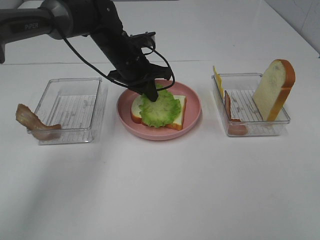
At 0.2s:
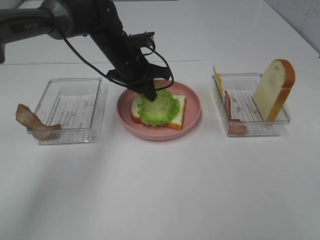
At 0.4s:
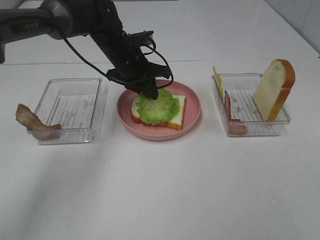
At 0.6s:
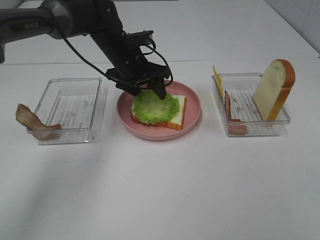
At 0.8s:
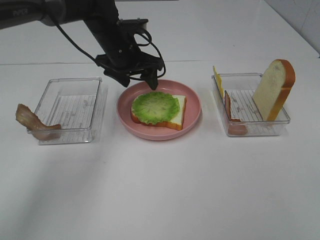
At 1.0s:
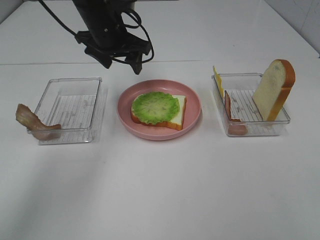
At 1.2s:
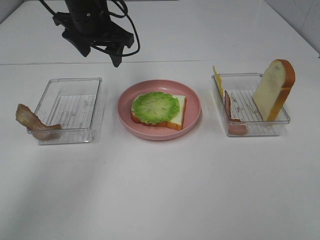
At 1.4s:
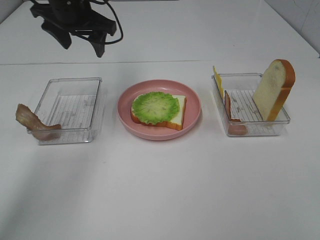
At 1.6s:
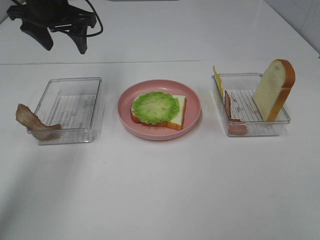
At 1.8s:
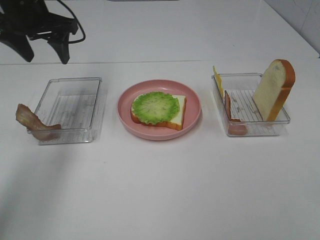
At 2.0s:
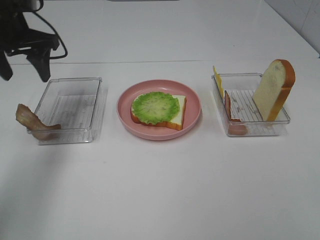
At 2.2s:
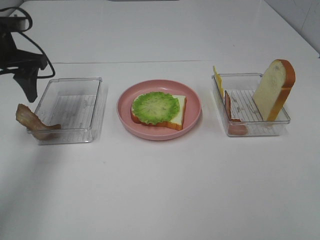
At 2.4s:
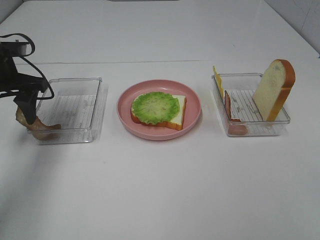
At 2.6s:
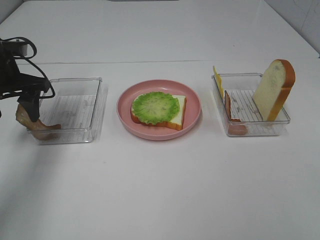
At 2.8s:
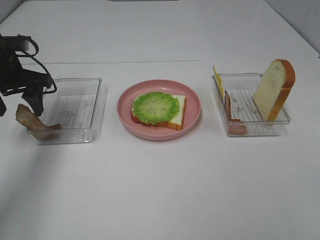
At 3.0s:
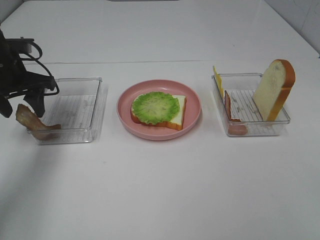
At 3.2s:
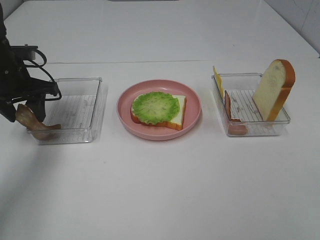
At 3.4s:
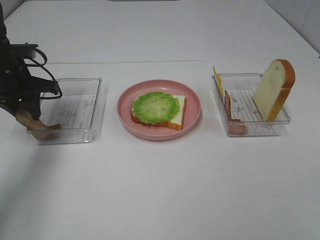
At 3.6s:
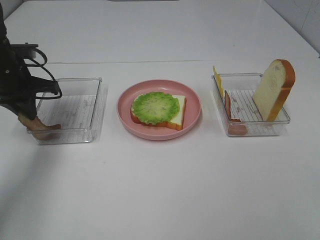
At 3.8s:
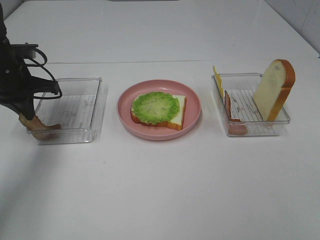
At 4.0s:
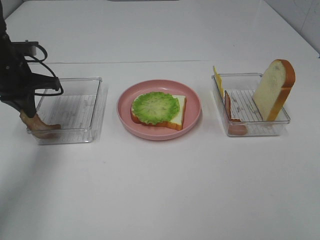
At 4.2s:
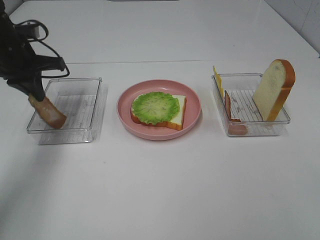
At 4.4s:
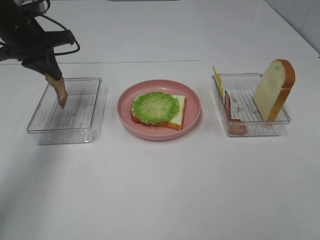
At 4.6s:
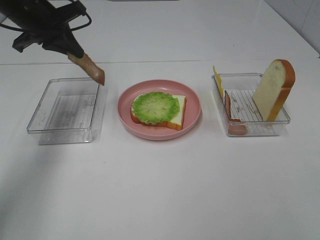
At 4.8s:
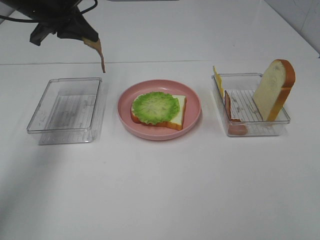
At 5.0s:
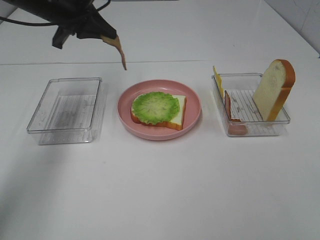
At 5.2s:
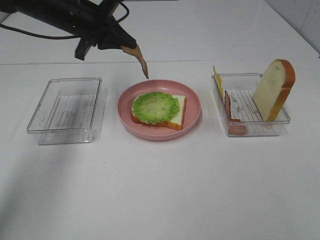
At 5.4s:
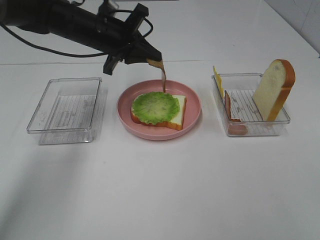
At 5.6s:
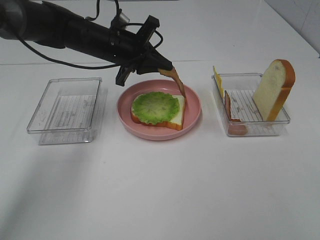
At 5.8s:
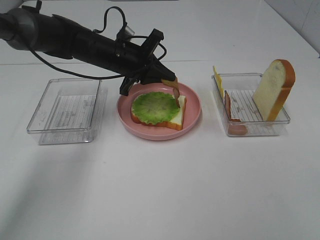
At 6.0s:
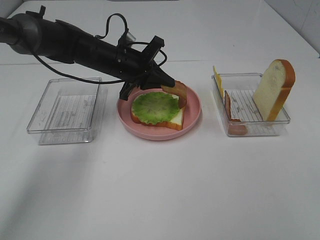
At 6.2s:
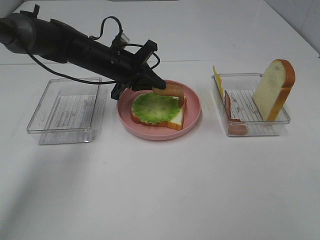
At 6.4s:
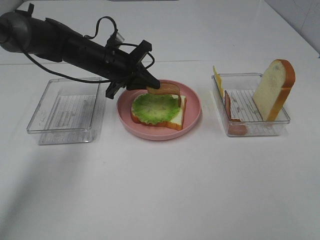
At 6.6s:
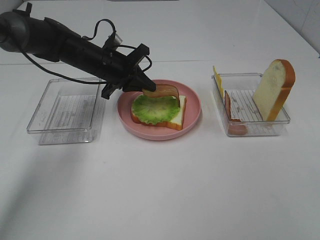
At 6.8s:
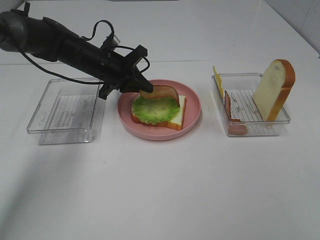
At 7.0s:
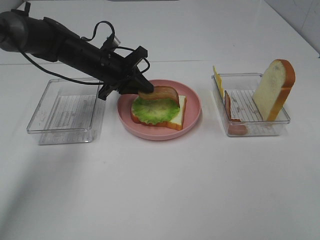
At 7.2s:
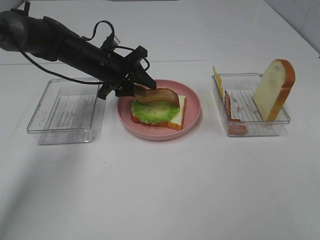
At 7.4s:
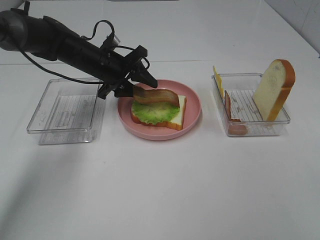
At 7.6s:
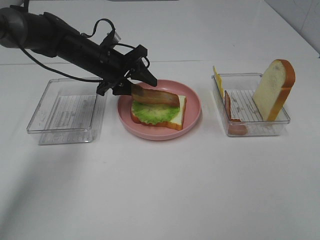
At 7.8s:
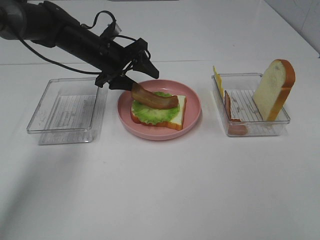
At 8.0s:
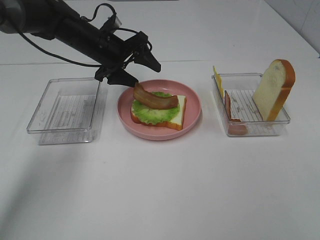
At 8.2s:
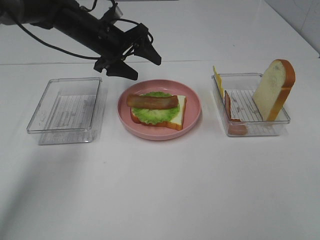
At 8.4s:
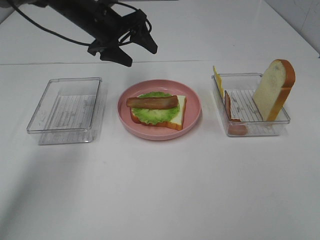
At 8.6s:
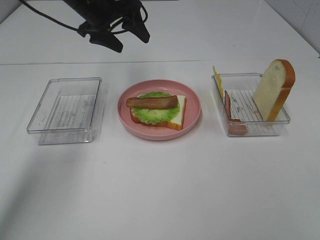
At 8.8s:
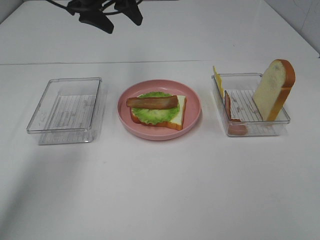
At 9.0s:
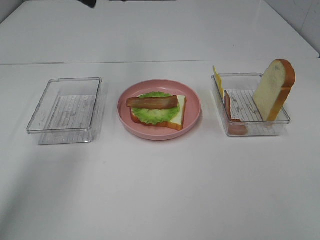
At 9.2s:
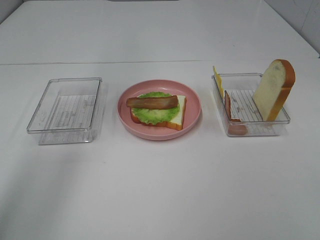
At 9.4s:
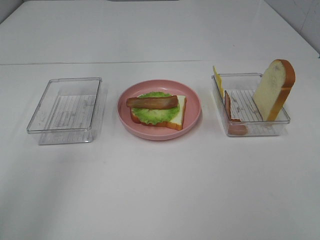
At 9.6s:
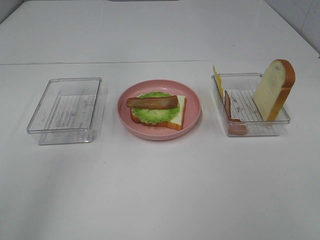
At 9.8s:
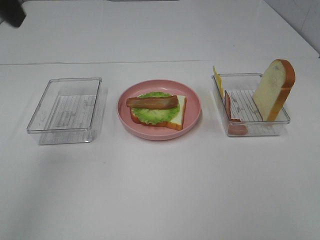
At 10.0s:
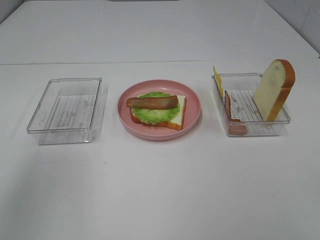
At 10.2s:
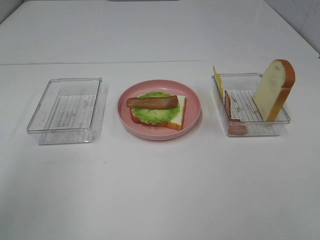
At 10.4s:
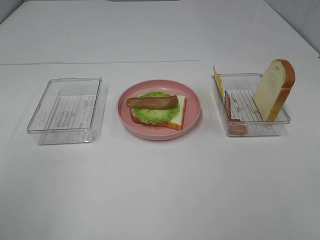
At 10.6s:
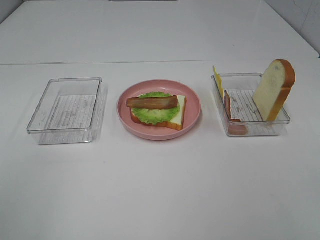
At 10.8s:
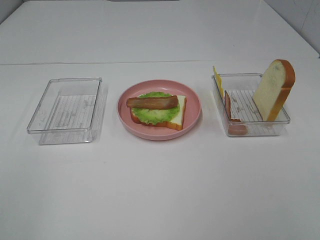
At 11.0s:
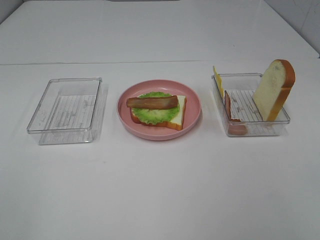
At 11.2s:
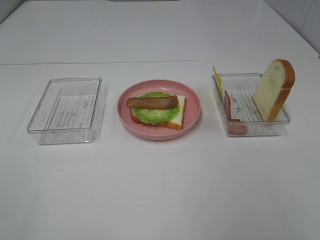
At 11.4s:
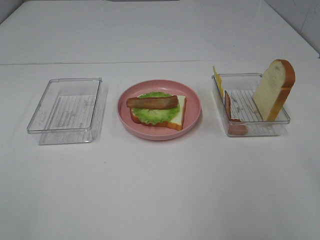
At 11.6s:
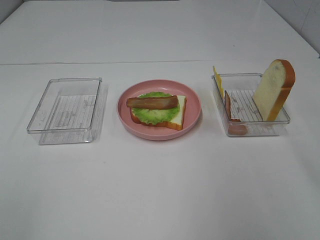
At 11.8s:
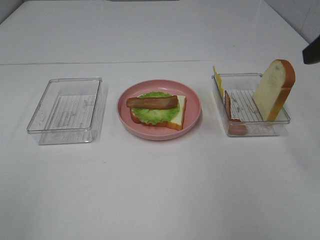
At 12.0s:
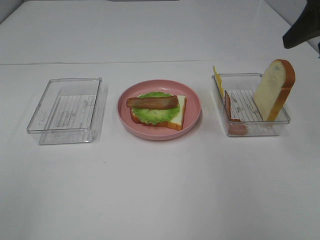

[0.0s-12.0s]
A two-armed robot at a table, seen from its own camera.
Task of the whole recording: Make sandwiches.
Step, 1.0s to 4.0s: Left hand:grab the bacon.
Step, 4.2s to 8.4s: Left hand:place bacon on lettuce slice.
0.0s to 1.6s: The left gripper goes about 20 cm upward and to the left, and opens.
1.6s to 3.0s: The left gripper goes some 15 cm downward, to the left and backward.
3.0s to 4.4s: The left gripper heads upward, covering approximately 5 cm, and closes its fingers.
4.4s to 6.0s: The left gripper is displaced to the right and downward by approximately 20 cm.
6.0s to 7.6s: The left gripper opens its fingers.
7.6s to 9.0s: The left gripper heads upward, covering about 25 cm.
9.0s to 10.4s: The left gripper moves backward, about 35 cm.
10.4s to 12.0s: The right gripper moves forward, approximately 30 cm.

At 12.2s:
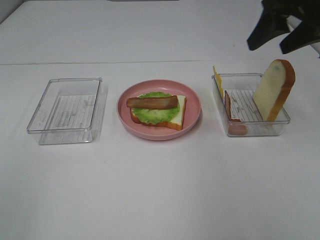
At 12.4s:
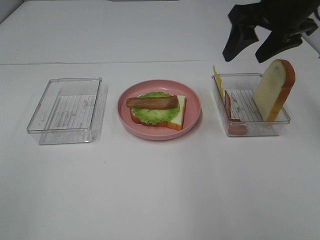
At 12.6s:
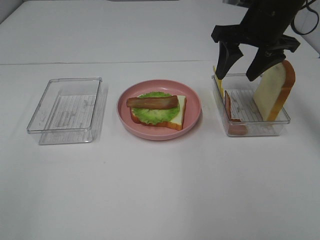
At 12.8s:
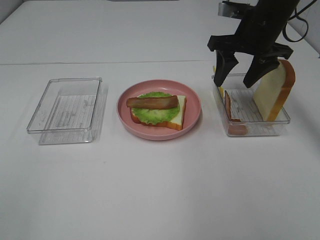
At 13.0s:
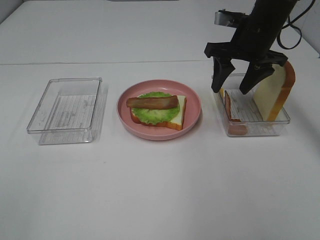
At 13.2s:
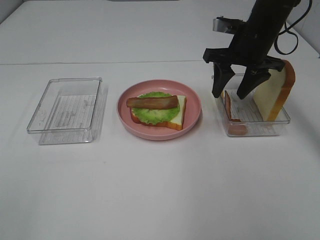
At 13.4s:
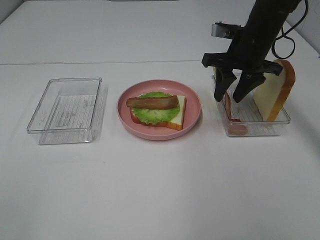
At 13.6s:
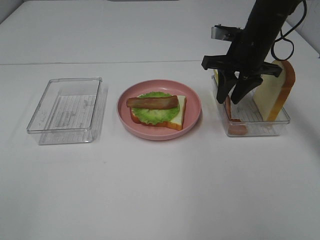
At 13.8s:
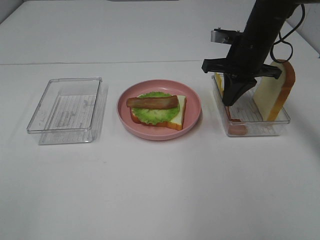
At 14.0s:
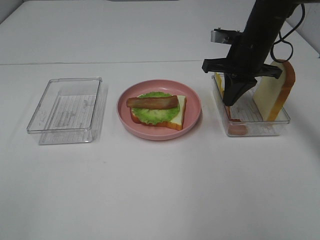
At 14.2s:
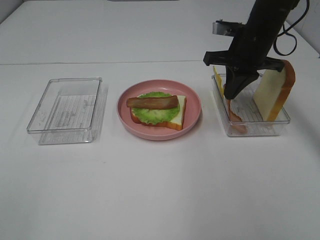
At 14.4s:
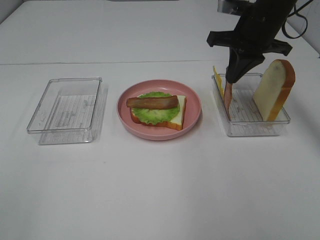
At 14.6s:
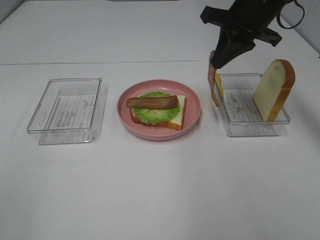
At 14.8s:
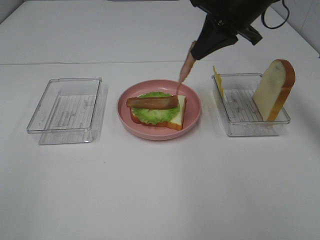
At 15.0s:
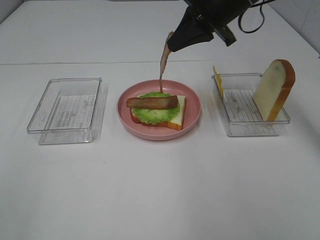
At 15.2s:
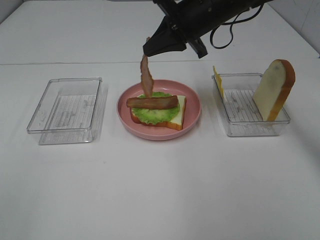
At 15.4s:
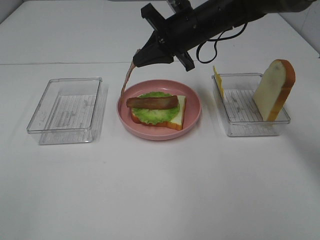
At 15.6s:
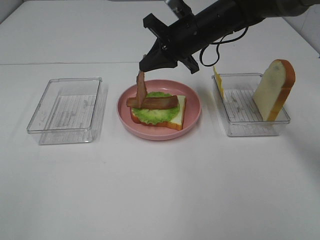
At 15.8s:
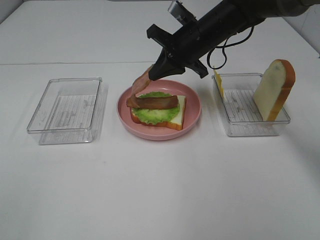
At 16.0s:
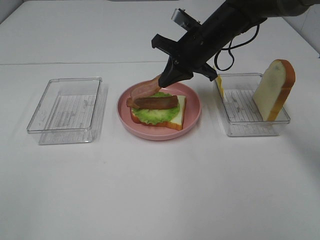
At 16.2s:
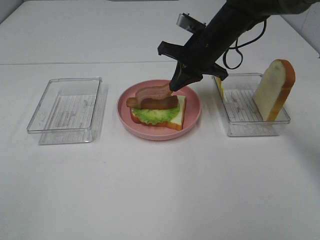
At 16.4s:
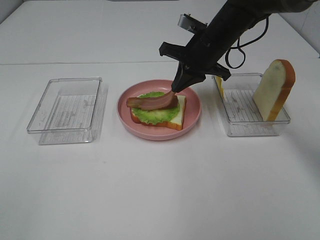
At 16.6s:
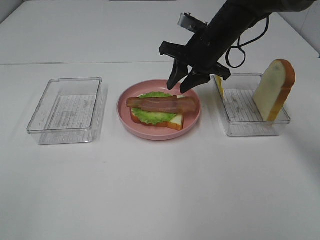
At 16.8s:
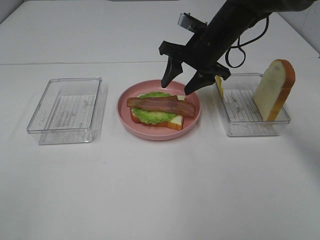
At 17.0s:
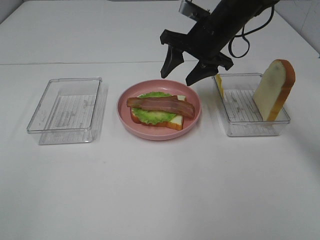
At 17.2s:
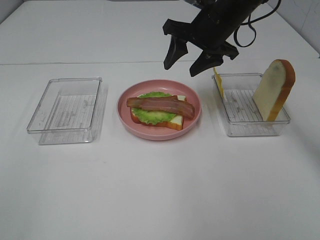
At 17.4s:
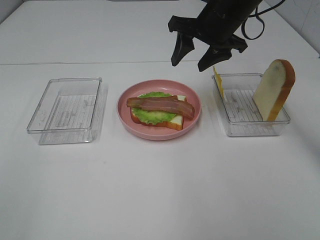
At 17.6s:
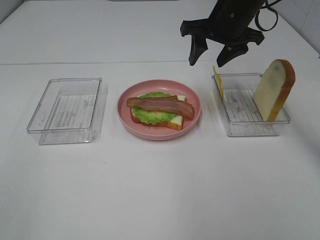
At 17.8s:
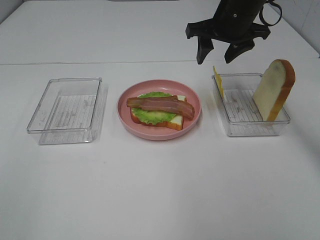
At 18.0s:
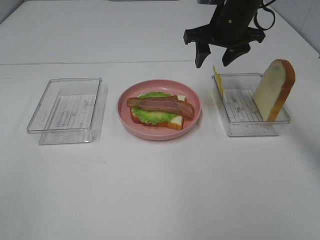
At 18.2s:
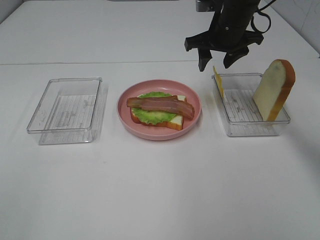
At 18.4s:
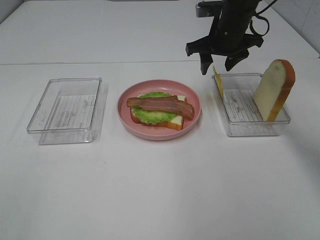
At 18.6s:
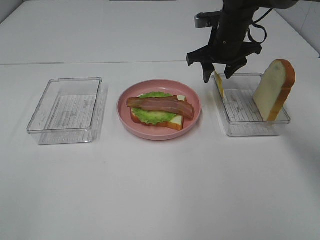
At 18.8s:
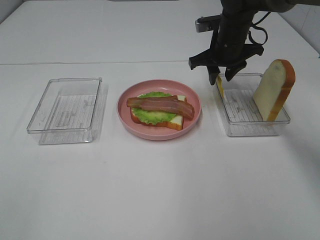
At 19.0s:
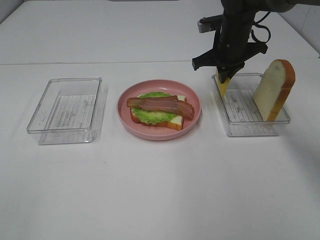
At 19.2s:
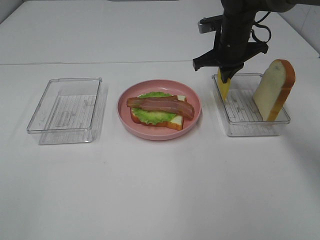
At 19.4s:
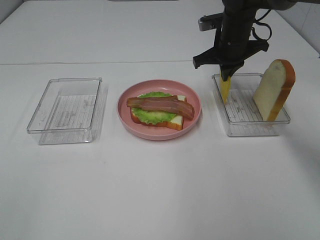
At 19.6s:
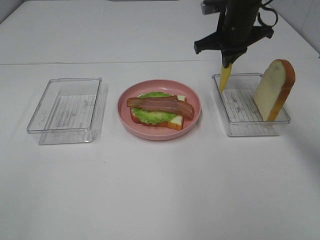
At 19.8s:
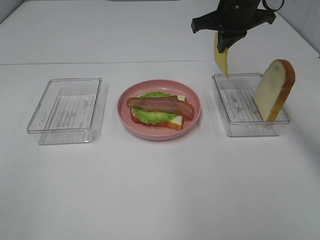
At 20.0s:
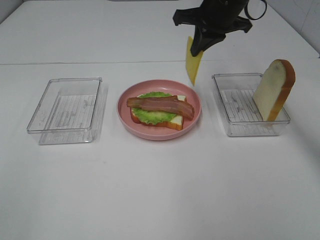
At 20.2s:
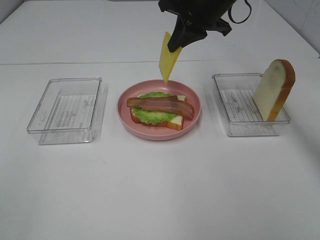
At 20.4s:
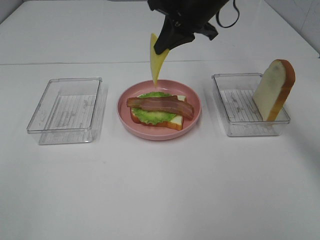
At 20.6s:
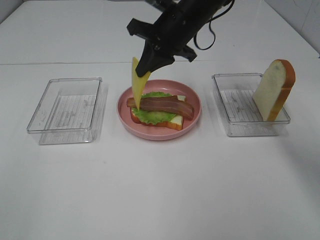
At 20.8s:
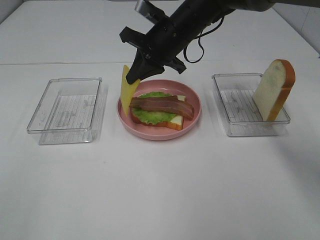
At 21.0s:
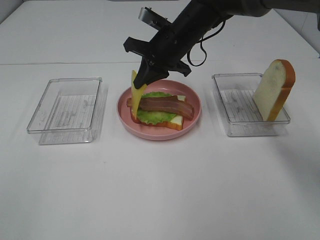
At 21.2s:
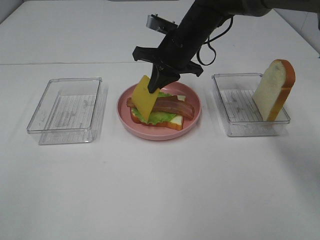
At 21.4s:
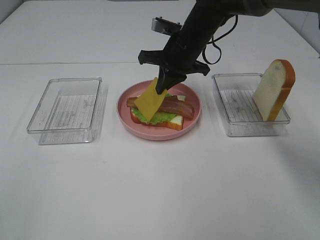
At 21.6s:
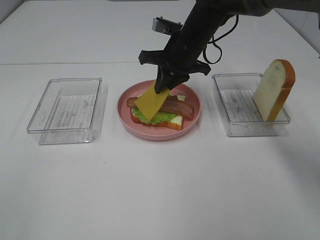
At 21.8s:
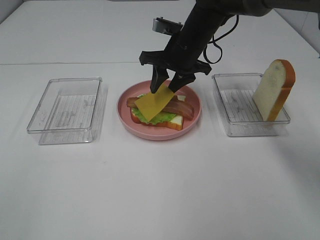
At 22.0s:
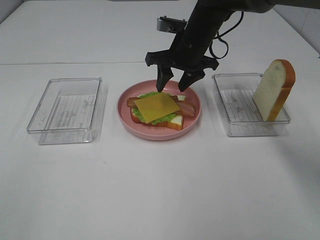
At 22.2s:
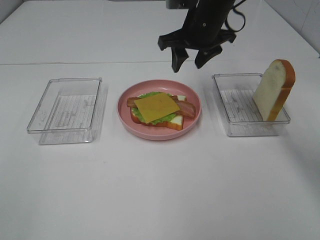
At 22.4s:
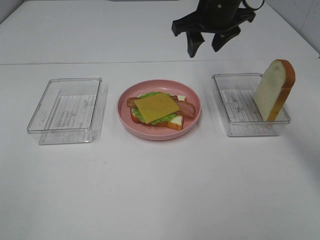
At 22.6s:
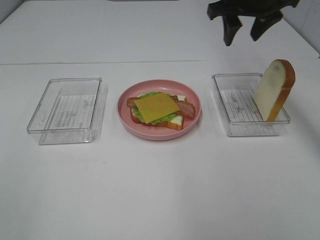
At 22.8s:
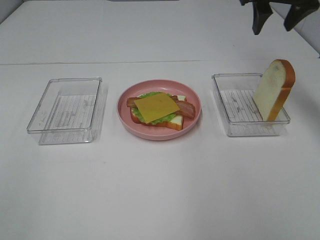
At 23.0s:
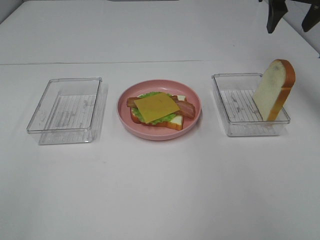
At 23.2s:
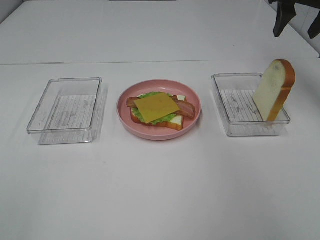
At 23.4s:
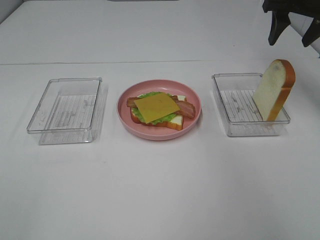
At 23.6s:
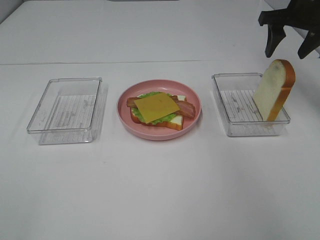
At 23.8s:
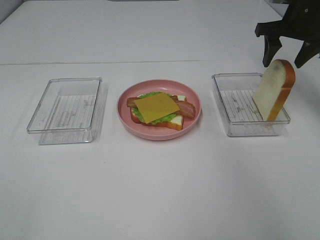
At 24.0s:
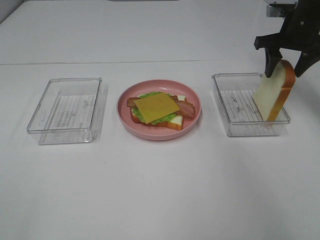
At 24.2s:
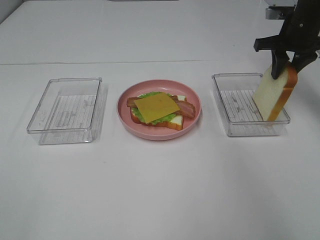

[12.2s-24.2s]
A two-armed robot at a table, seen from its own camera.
Task of the whole recording: Make sandwiches.
Step, 14.0s to 17.0s: Right hand:place bacon on bacon.
Step, 17.2s to 19.4s: Right hand:grab the cheese slice.
Step, 19.6s to 22.2s: Right hand:place the cheese slice on top of the bacon.
12.2s to 13.8s: The right gripper heads downward and forward, covering some 15 cm, and closes.
13.8s to 15.2s: The right gripper is displaced to the left and upward by some 10 cm.
15.2s to 16.6s: The right gripper shifts approximately 5 cm downward, and opens its fingers.
16.6s to 18.2s: The right gripper moves about 5 cm.
18.2s to 19.8s: The right gripper closes up.
19.8s to 21.2s: The right gripper travels to the left and downward by approximately 10 cm.
21.2s to 22.6s: The right gripper shifts some 15 cm upward and to the right, and opens up.
22.6s to 24.2s: The right gripper shifts roughly 15 cm to the right and downward.
